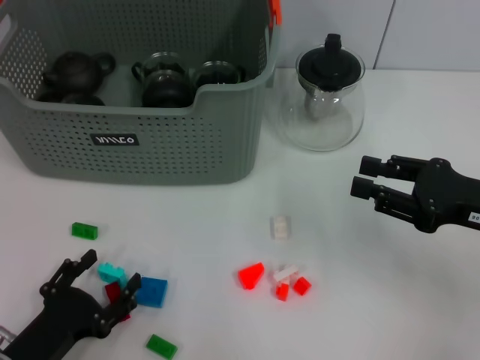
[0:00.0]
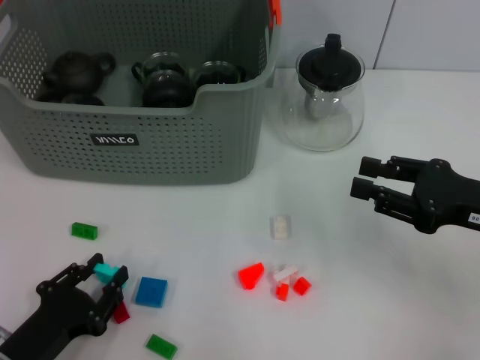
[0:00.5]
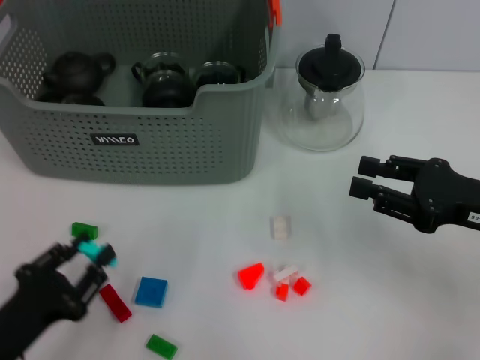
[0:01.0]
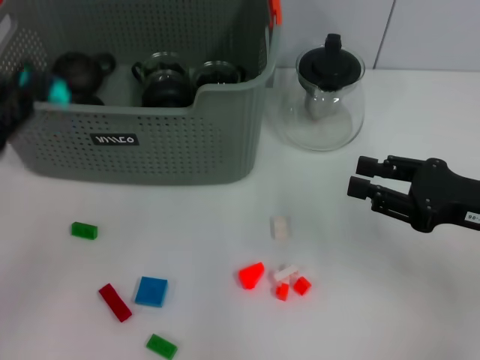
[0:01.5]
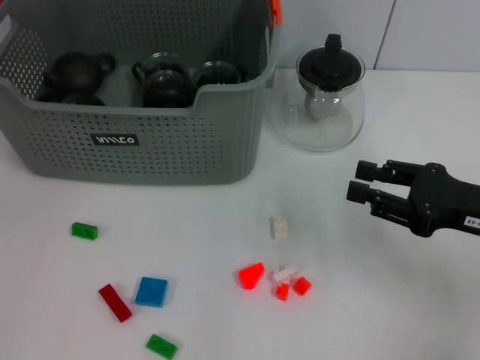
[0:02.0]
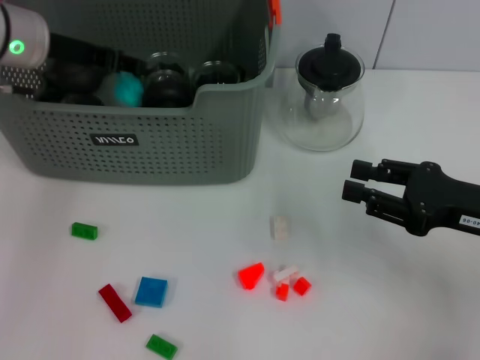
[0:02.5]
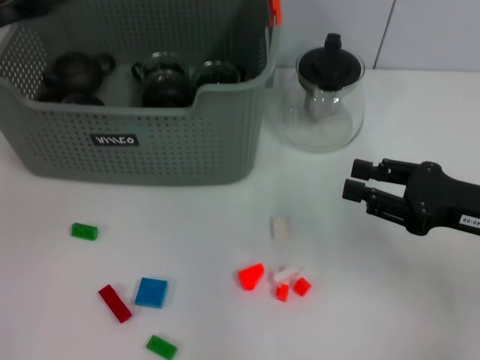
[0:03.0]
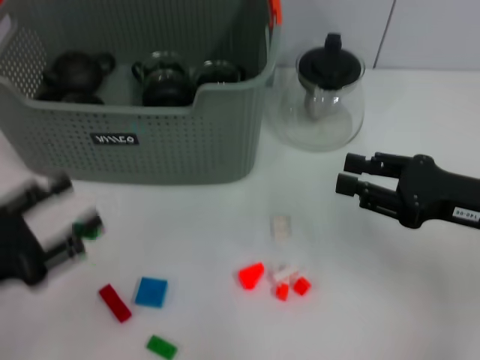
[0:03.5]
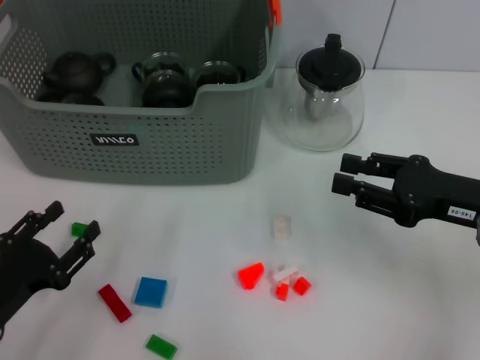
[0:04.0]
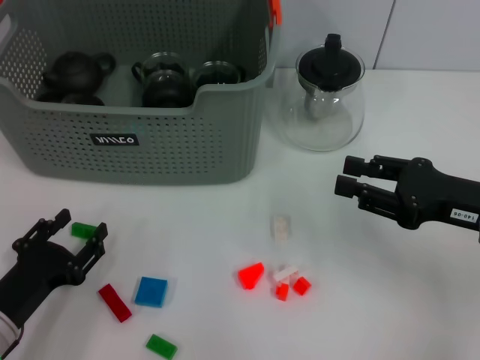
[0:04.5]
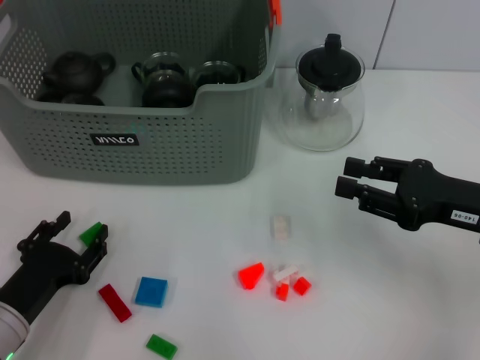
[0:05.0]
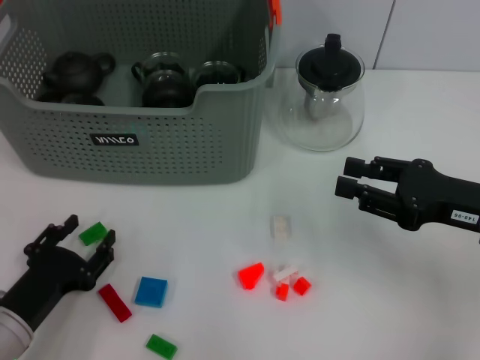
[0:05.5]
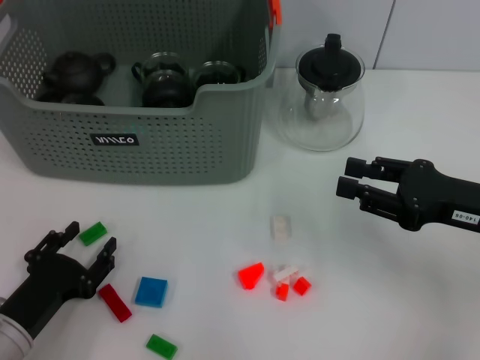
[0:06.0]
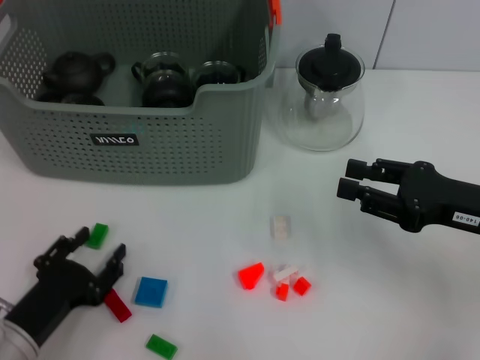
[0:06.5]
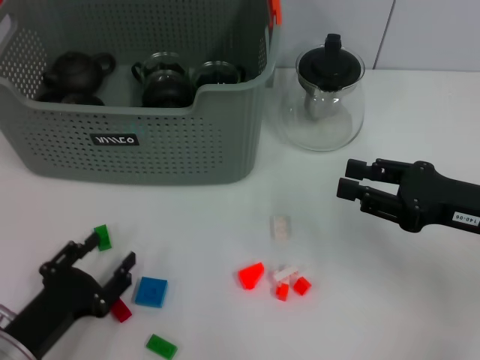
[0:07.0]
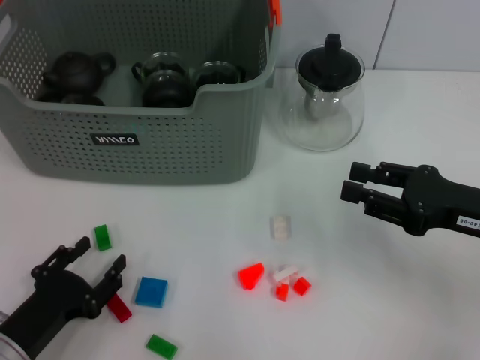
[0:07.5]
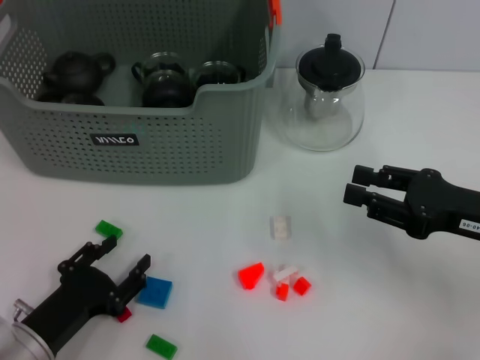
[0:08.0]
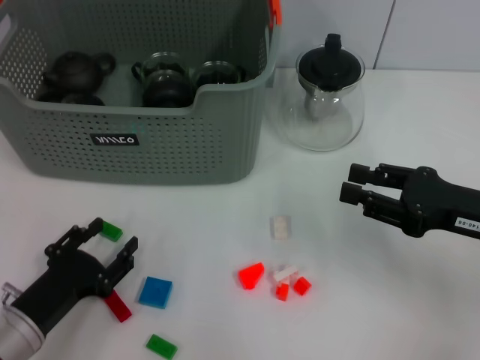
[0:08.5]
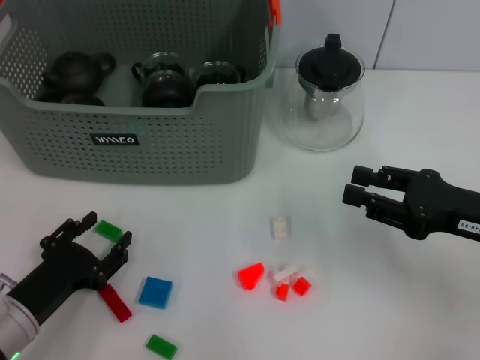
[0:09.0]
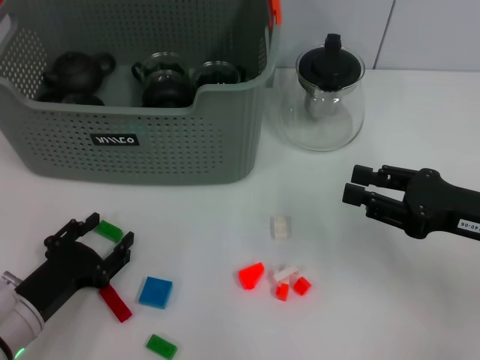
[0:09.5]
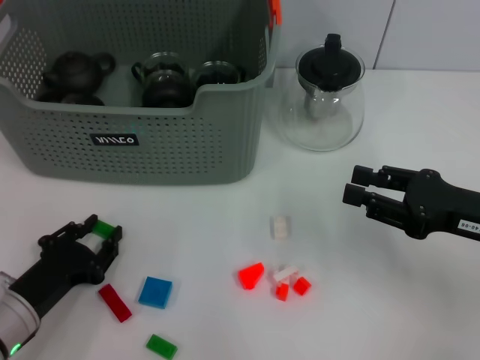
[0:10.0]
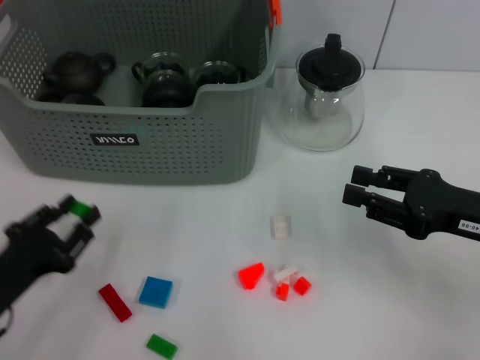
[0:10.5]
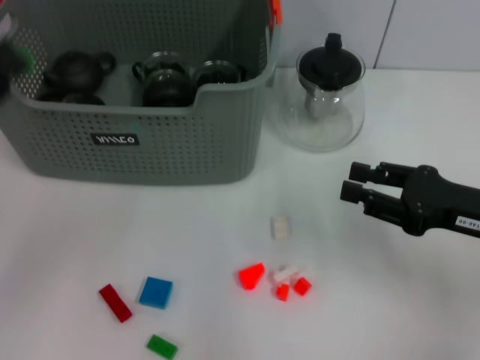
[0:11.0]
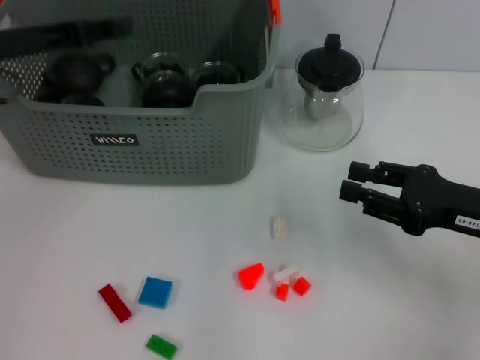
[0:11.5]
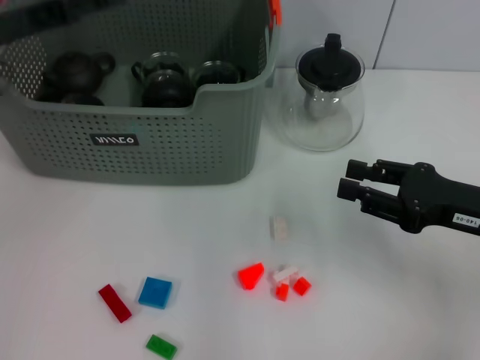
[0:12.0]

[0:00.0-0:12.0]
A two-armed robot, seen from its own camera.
Task of the whole recording: pick up the teacup on the table and place it into the storage bin, pick up the block on the table and place it into the storage bin.
Step, 0:01.0 to 0:02.5: Place the light blue block in the storage box with left gripper.
Step, 0:03.0 to 0:10.0: Grasp the green block with left gripper.
0:00.0 to 0:02.0: The left gripper goes about 35 cm upward and forward, and closes its fingers.
0:02.0 to 0:04.0: The left gripper heads downward and backward, covering some 30 cm.
0:04.0 to 0:10.0: The grippers move only a little.
0:10.0 to 0:12.0: The left gripper is displaced upward and forward by roughly 25 cm.

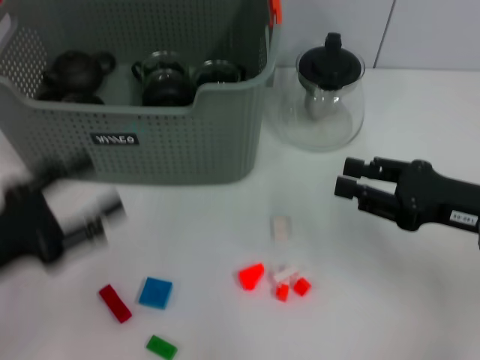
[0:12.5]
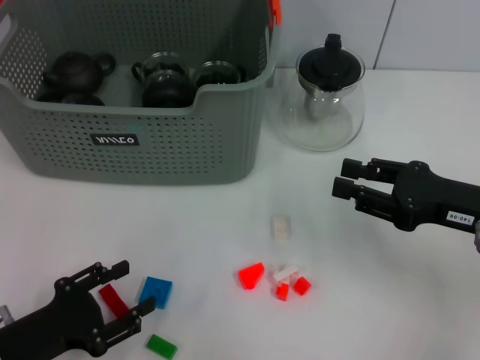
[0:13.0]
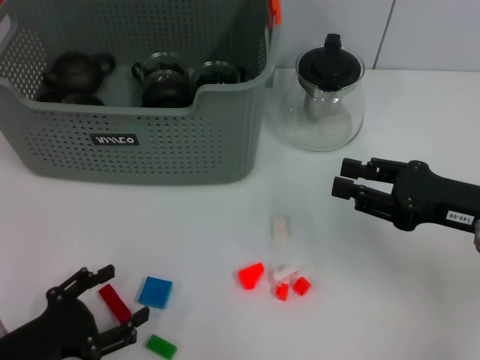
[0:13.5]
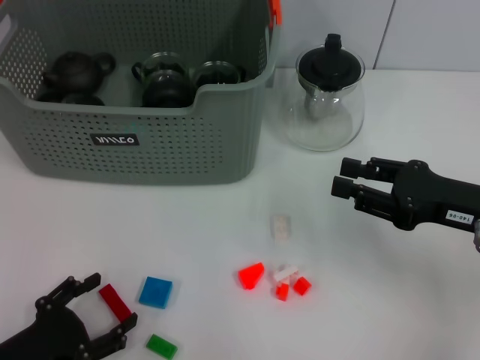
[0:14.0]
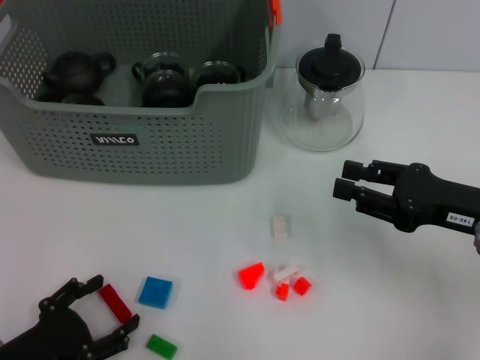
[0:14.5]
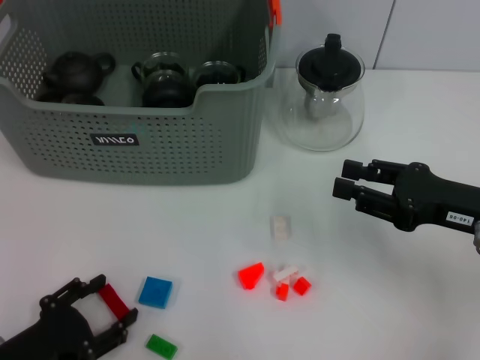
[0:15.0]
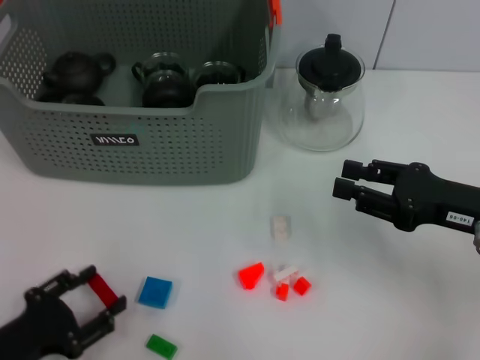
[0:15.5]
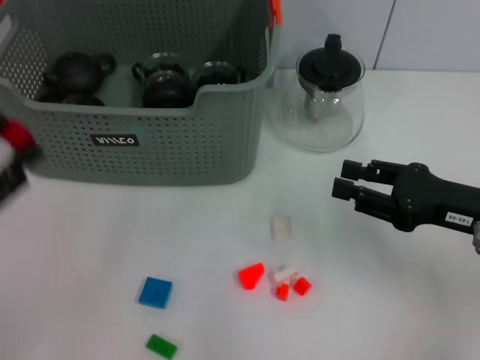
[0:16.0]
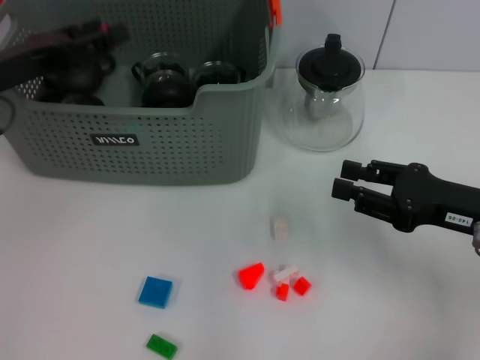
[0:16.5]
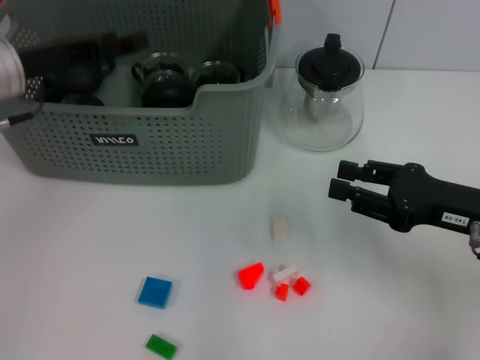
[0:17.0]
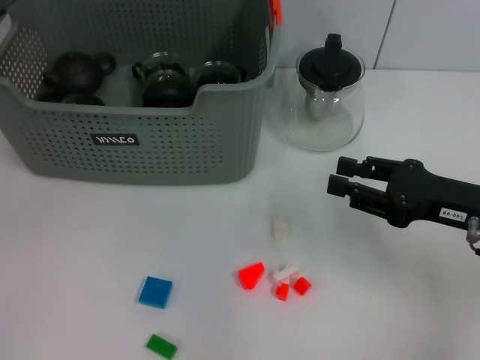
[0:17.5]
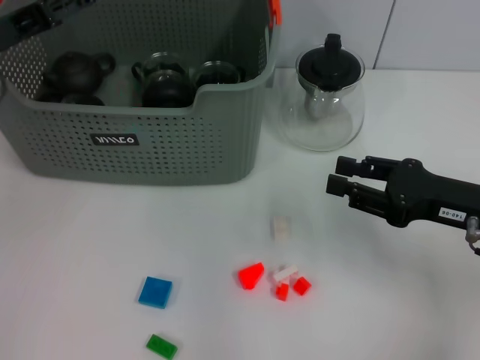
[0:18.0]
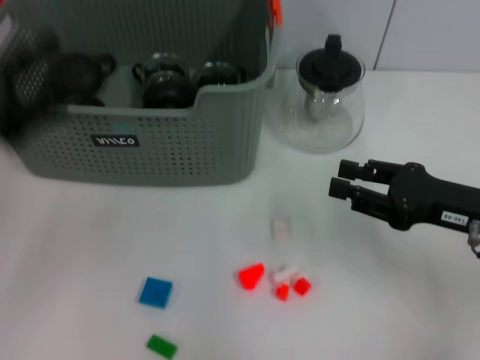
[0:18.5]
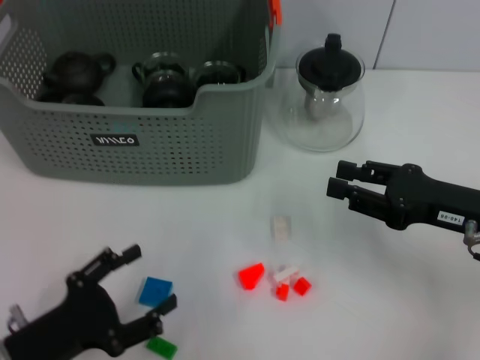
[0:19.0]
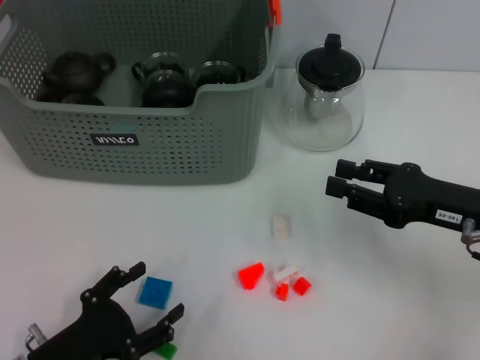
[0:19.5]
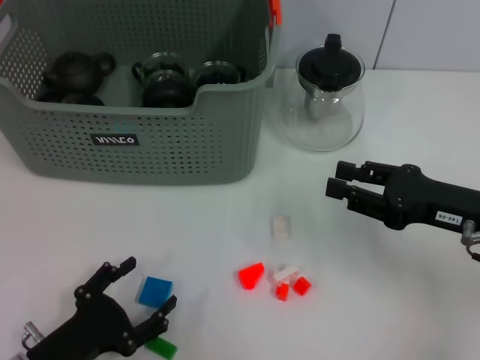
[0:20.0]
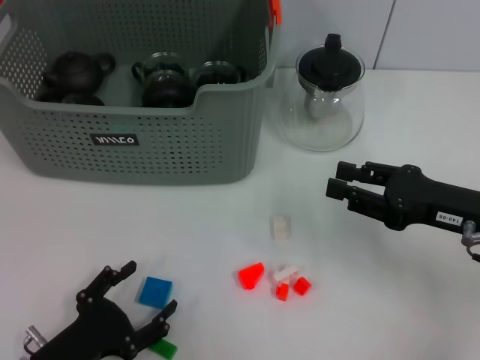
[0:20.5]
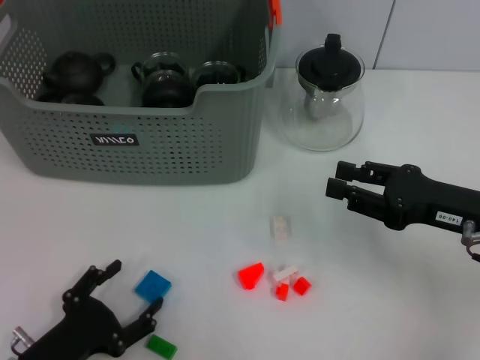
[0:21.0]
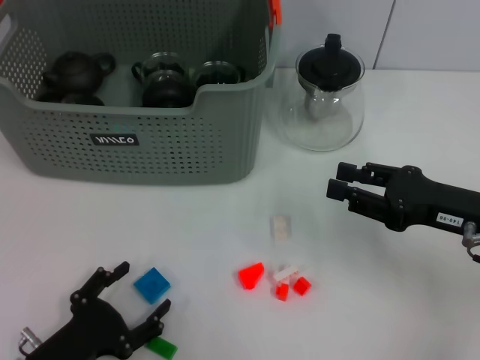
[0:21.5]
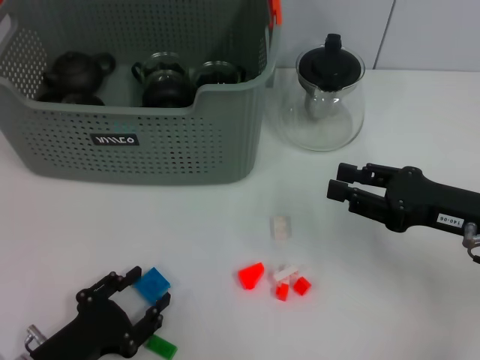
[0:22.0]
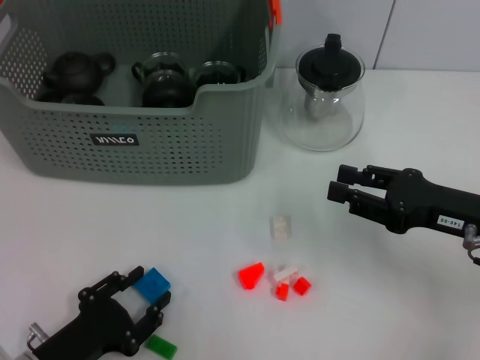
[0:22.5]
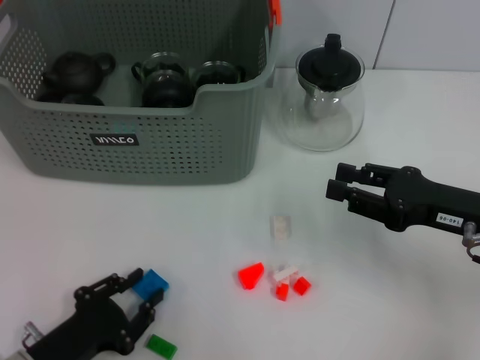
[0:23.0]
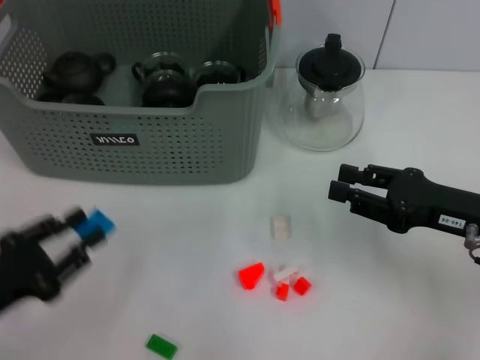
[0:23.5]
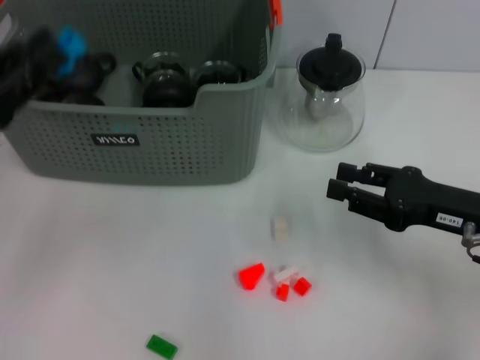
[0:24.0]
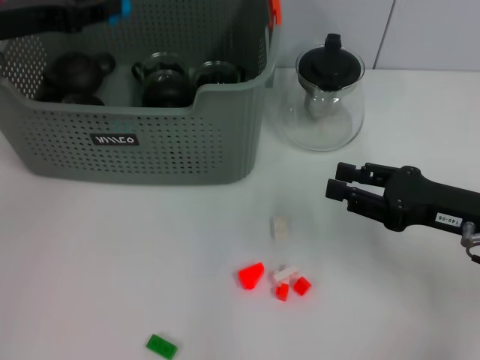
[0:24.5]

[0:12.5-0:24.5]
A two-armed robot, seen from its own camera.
Task of the whole recording: pick up the teacup on the table and place it into the storage bin, pick up the block on the table and place it into the storage bin.
Step, 0:13.0 to 0:15.0: Grasp the red block with left gripper.
Step, 0:15.5 to 0:18.0: Place the red block in the storage box with left gripper.
Step, 0:18.5 to 0:23.0: Grasp the dark blue block with left gripper.
0:12.5 to 0:14.5: The left gripper heads downward and backward, covering roughly 10 cm.
0:14.5 to 0:16.5: The left gripper heads forward and upward, covering approximately 25 cm.
0:16.5 to 0:18.5: The left gripper heads backward, covering about 10 cm.
0:18.5 to 0:20.5: The left gripper heads downward, backward and to the right, covering approximately 20 cm.
0:20.5 to 0:22.5: The left gripper closes its fingers.
0:22.5 to 0:24.5: The left gripper heads forward and upward, covering approximately 35 cm.

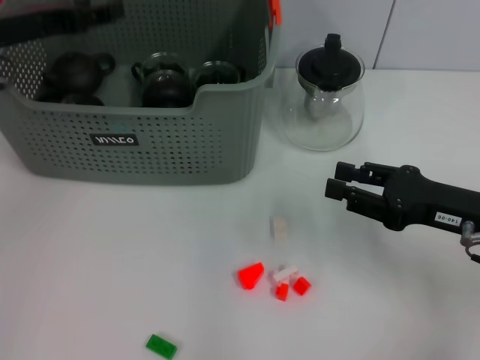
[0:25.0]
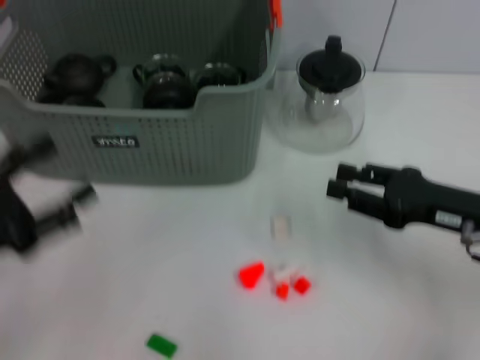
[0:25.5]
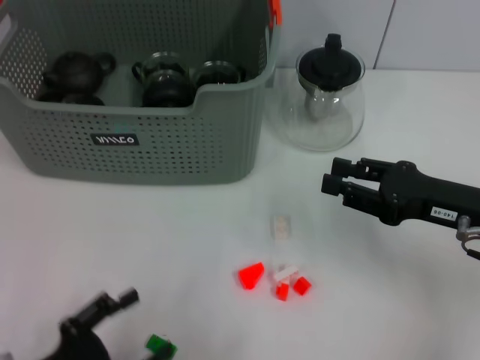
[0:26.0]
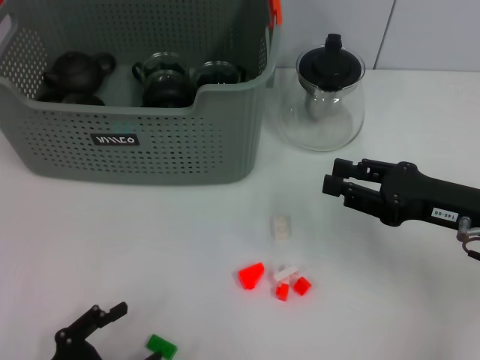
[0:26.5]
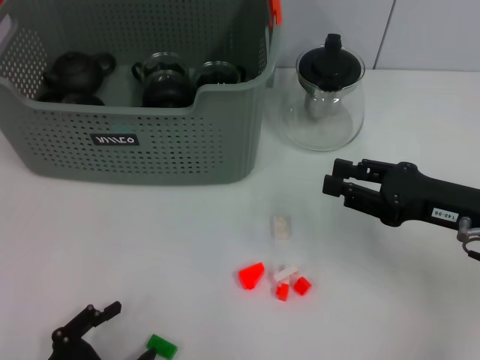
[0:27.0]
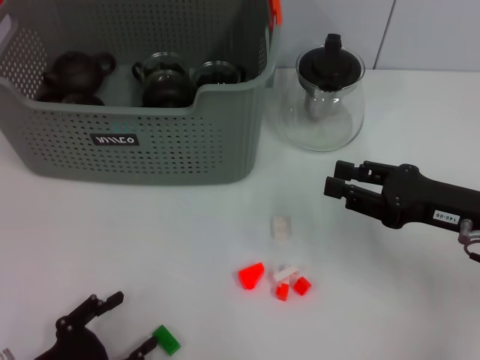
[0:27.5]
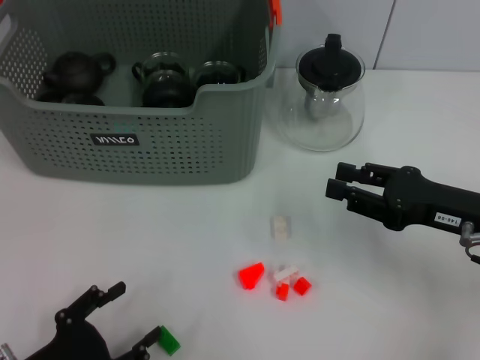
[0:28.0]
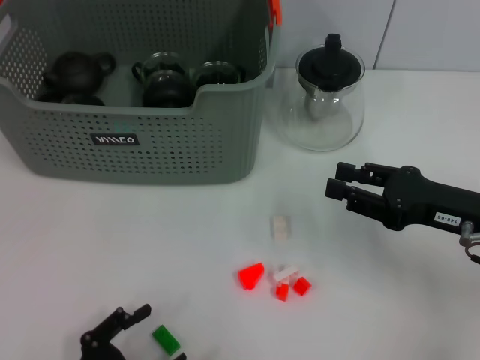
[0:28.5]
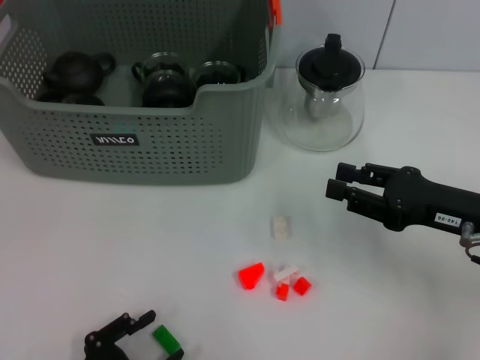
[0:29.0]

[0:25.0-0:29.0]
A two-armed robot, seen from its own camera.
Task of the whole recording: pick up the teacup on the table and place it into the storage bin, pick up the block on the table and place it into the storage bin.
0:25.0 to 0:27.0: The left gripper shifts approximately 35 cm backward and downward.
0:27.0 to 0:29.0: There are only small adjustments of the grippers.
